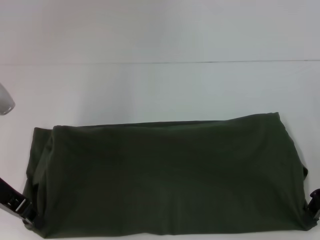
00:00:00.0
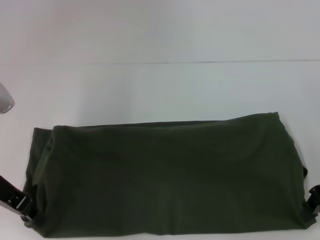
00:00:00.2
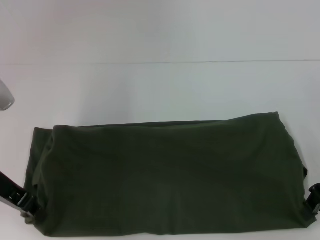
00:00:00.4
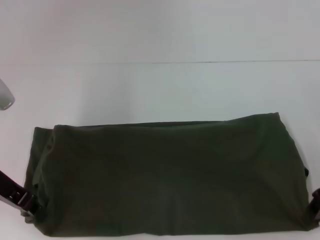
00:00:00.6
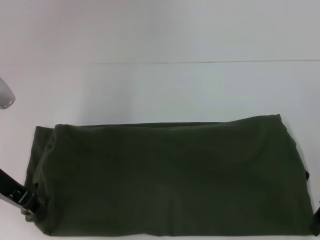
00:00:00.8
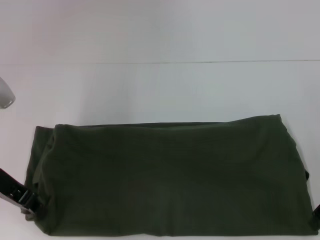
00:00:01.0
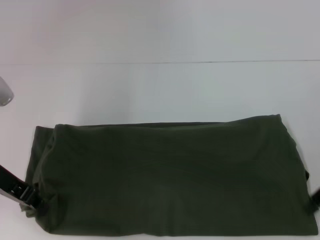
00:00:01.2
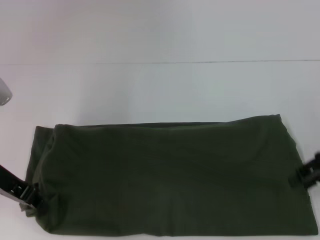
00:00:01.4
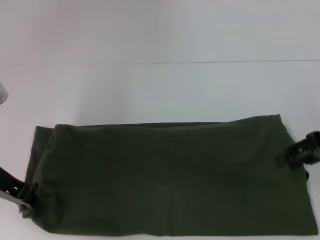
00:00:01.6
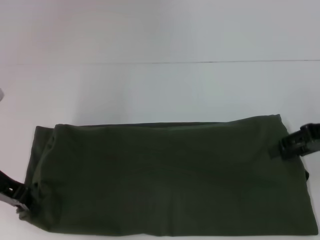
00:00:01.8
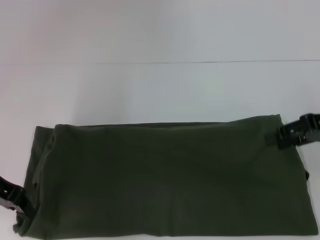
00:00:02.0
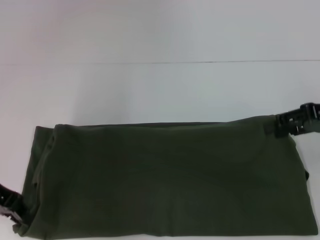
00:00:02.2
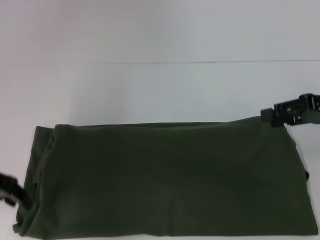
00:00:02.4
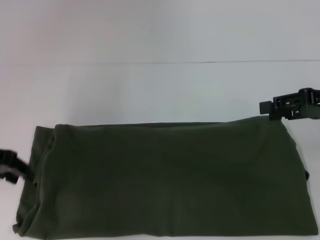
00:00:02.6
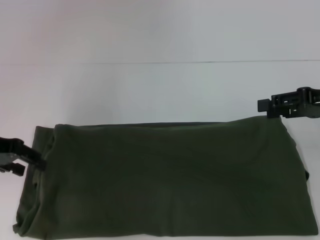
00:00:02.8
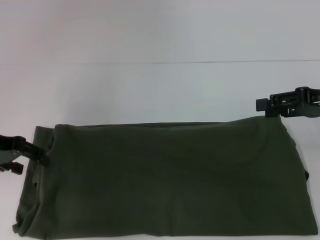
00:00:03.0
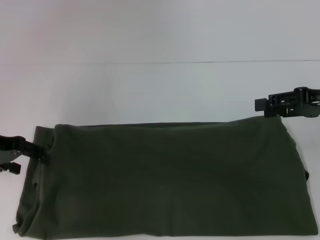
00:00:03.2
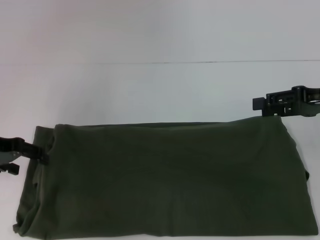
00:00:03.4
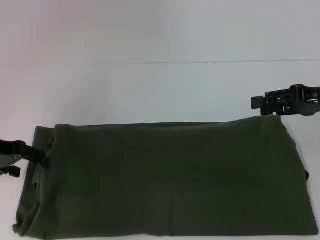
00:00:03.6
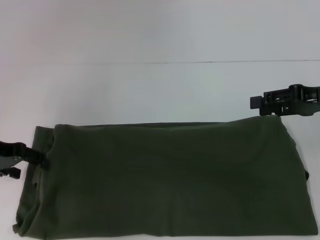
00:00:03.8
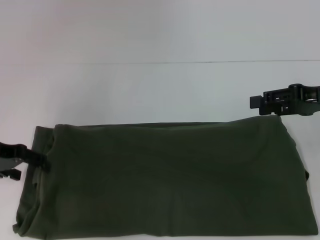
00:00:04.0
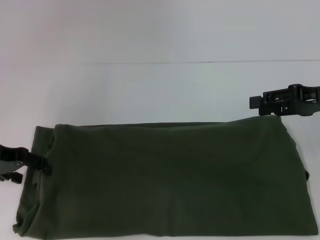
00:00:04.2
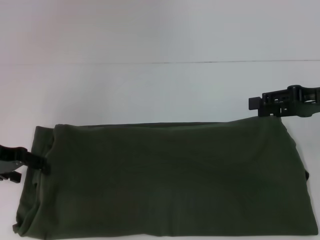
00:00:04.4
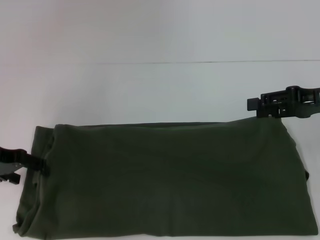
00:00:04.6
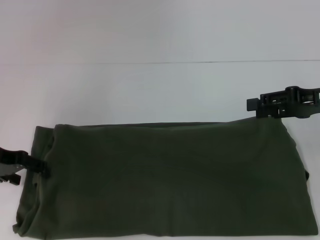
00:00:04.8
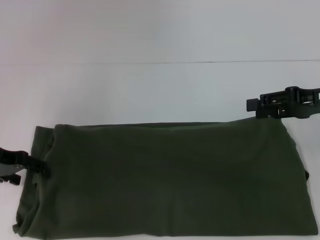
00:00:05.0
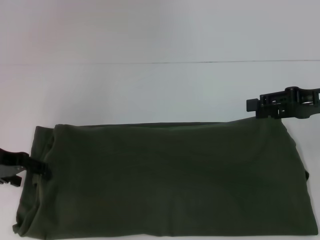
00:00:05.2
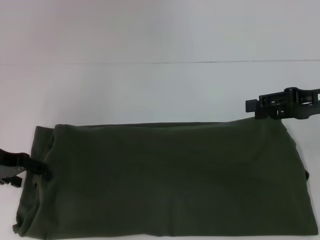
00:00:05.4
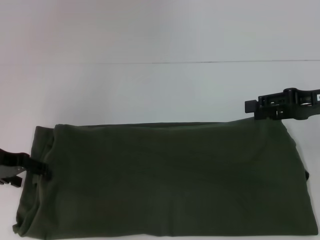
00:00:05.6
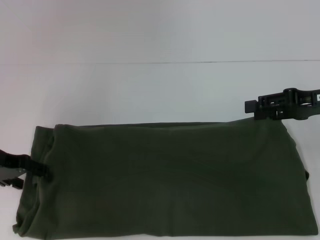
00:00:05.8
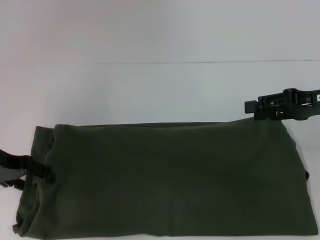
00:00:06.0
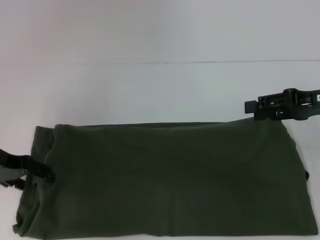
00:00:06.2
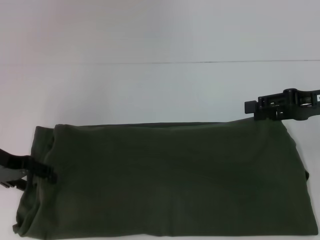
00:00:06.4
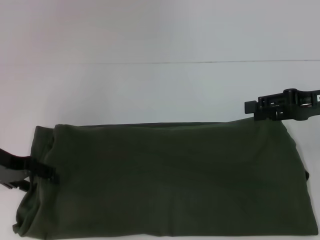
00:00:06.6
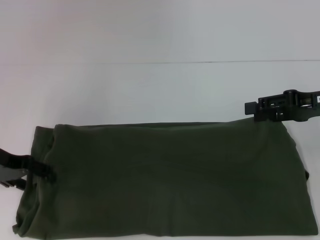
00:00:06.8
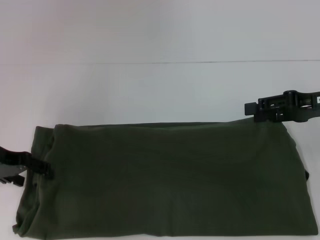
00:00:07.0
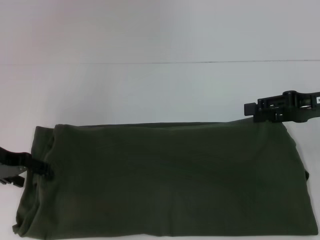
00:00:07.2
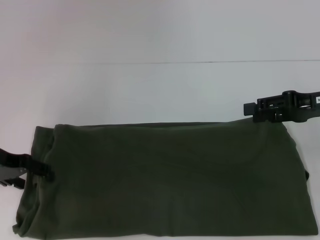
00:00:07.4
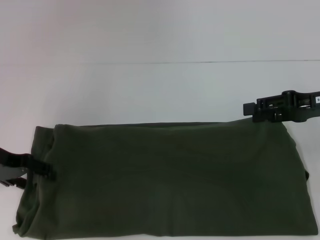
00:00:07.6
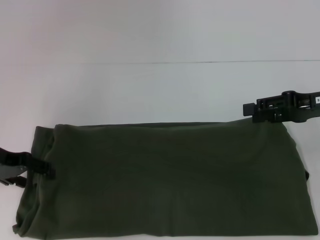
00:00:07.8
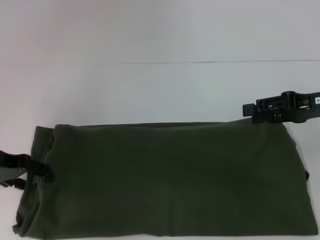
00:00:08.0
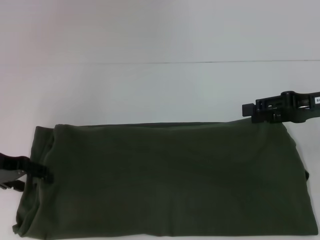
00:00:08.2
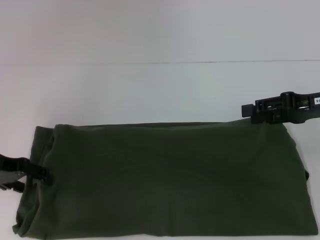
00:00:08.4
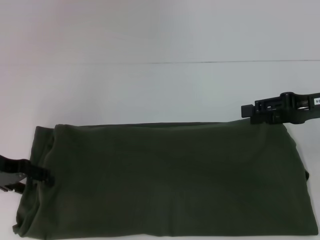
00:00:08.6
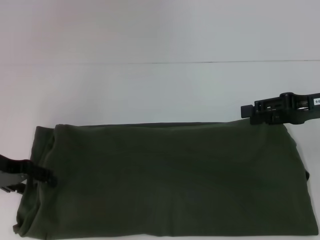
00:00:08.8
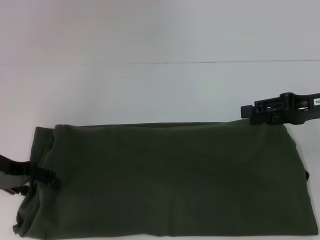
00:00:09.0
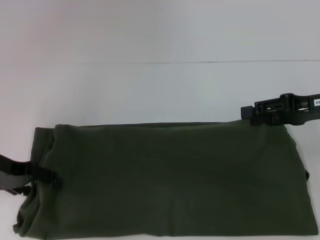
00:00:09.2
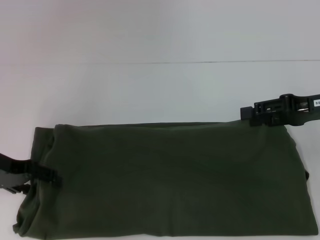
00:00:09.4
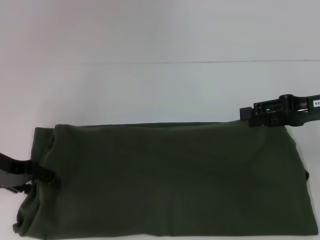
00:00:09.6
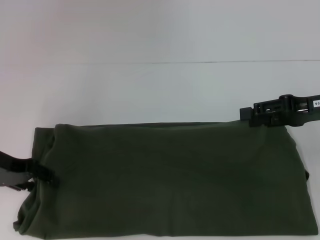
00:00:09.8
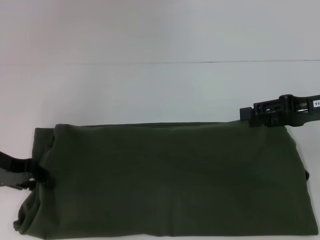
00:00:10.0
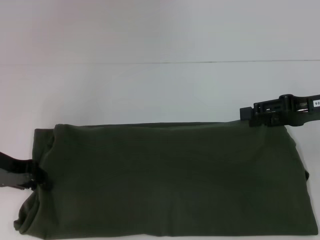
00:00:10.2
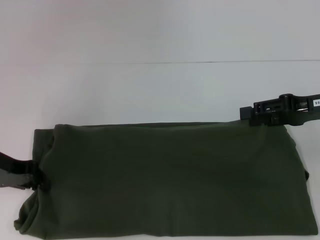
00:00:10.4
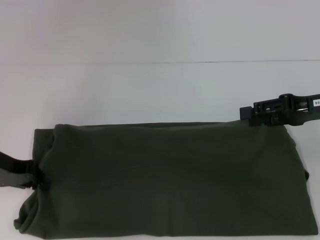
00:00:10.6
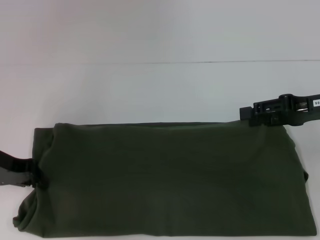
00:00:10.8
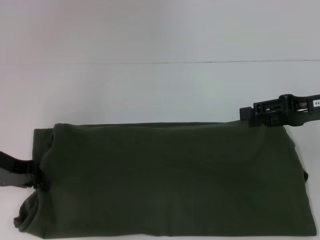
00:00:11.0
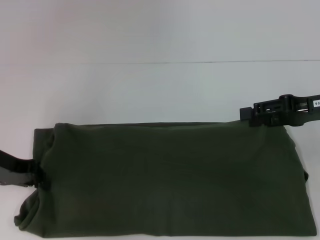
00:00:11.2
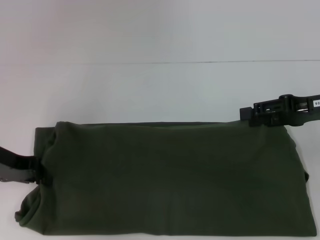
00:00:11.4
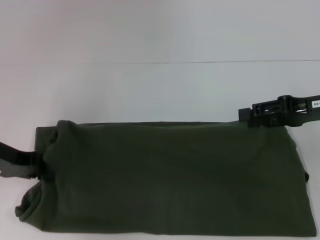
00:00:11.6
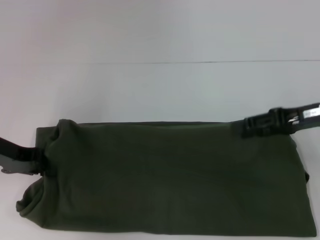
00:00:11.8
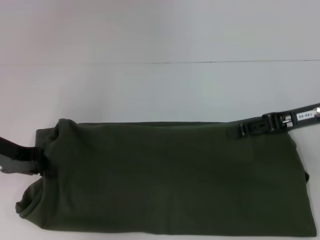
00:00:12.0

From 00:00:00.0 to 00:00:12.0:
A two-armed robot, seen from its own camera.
From 00:00:00.0 to 00:00:01.6: The right gripper opens.
From 00:00:01.6 to 00:00:03.0: The left gripper opens up.
From 00:00:03.0 to 00:00:04.4: The grippers make only small movements.
From 00:00:04.4 to 00:00:06.0: Both grippers stay about where they are.
From 00:00:06.0 to 00:00:09.0: Neither gripper changes place.
From 00:00:09.0 to 00:00:10.4: The left gripper closes.
From 00:00:10.4 to 00:00:12.0: The grippers stay close to where they were, moving slightly.

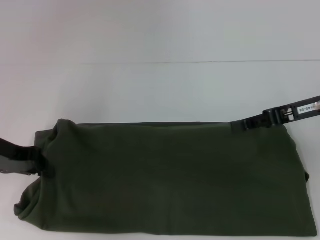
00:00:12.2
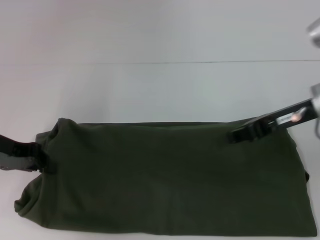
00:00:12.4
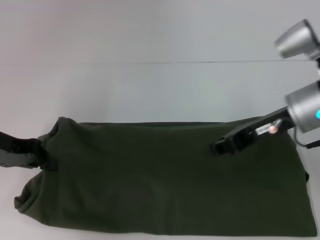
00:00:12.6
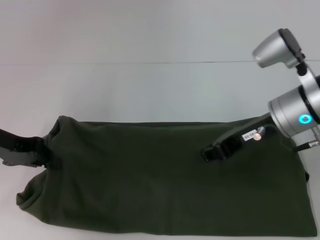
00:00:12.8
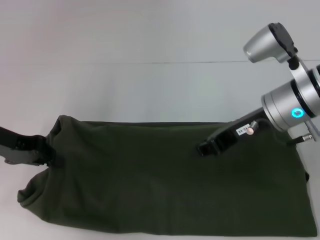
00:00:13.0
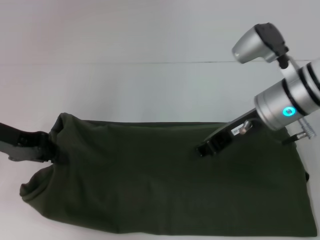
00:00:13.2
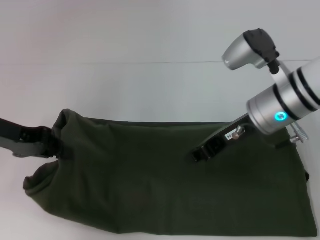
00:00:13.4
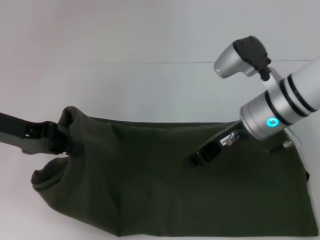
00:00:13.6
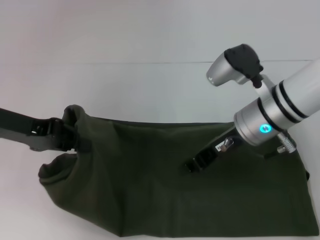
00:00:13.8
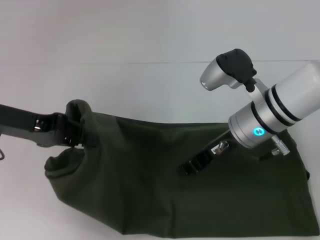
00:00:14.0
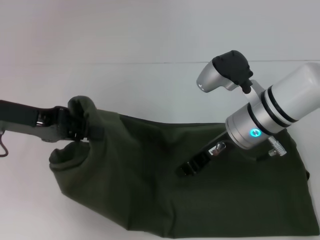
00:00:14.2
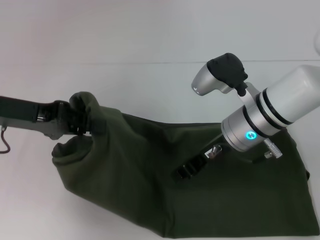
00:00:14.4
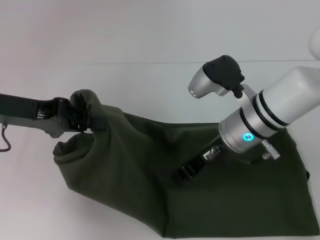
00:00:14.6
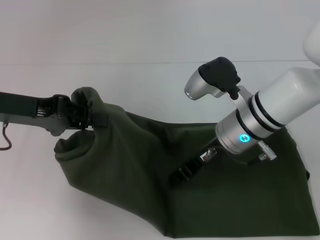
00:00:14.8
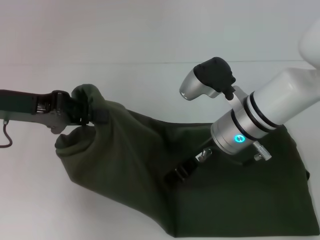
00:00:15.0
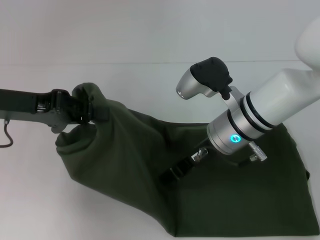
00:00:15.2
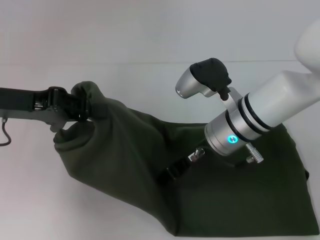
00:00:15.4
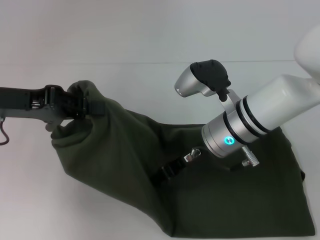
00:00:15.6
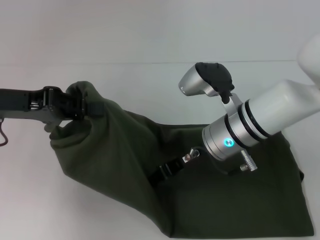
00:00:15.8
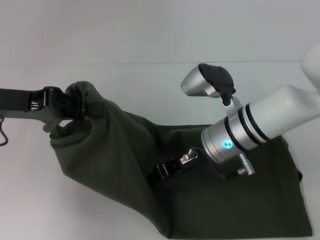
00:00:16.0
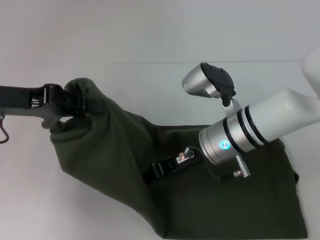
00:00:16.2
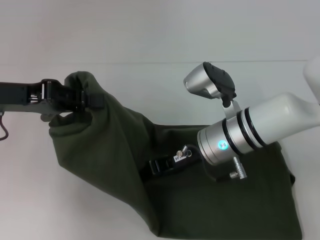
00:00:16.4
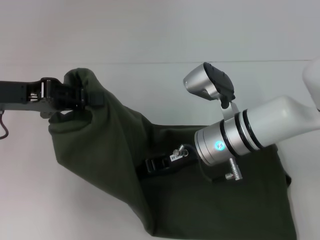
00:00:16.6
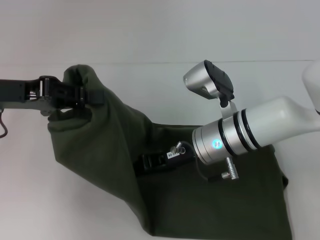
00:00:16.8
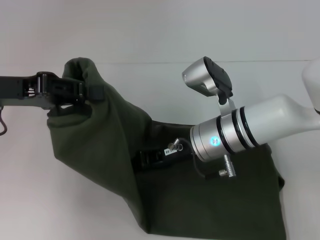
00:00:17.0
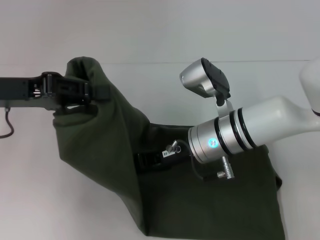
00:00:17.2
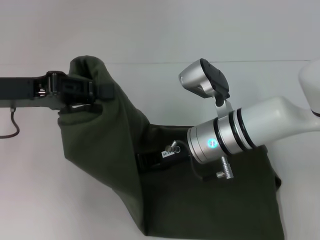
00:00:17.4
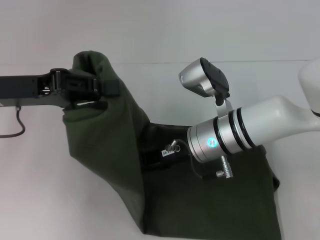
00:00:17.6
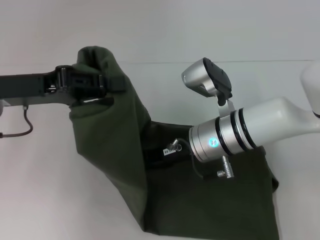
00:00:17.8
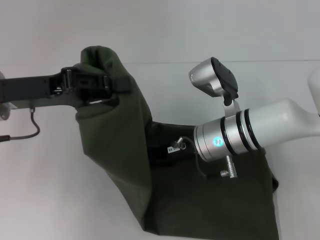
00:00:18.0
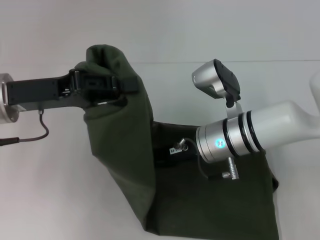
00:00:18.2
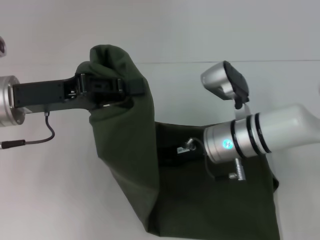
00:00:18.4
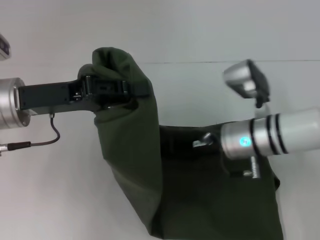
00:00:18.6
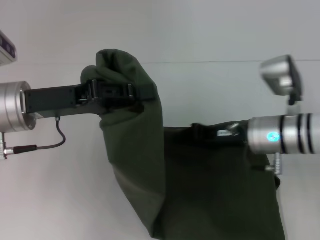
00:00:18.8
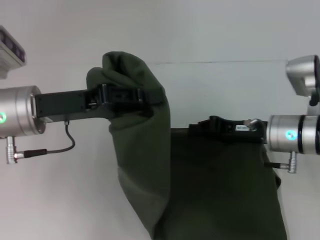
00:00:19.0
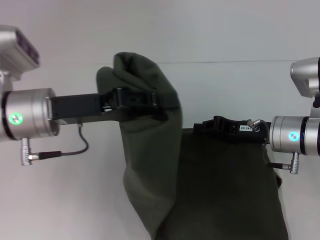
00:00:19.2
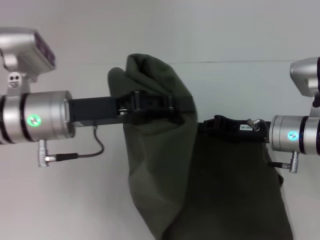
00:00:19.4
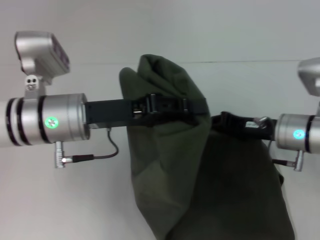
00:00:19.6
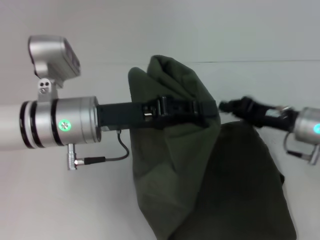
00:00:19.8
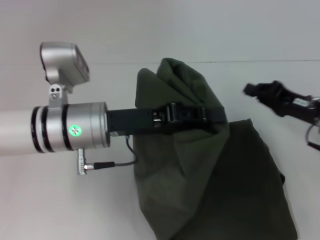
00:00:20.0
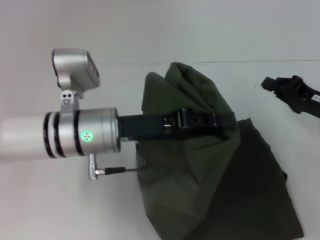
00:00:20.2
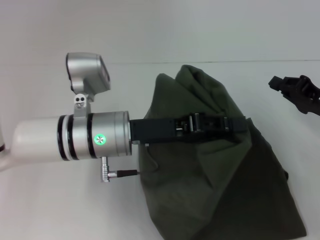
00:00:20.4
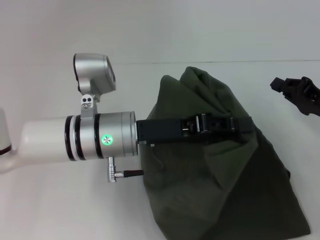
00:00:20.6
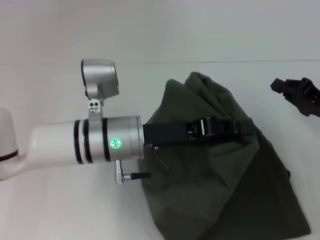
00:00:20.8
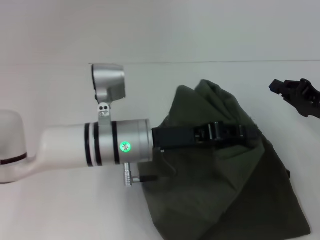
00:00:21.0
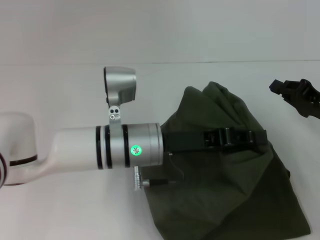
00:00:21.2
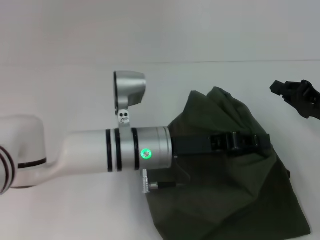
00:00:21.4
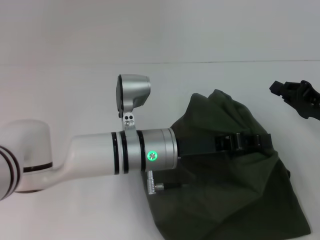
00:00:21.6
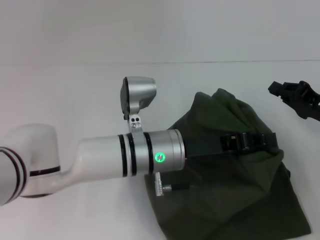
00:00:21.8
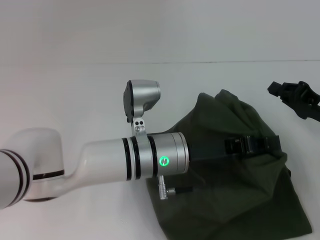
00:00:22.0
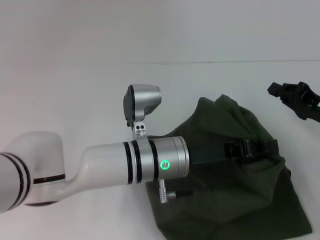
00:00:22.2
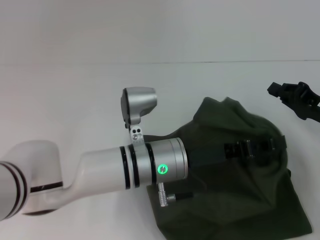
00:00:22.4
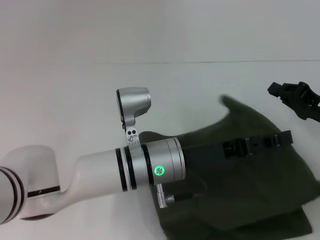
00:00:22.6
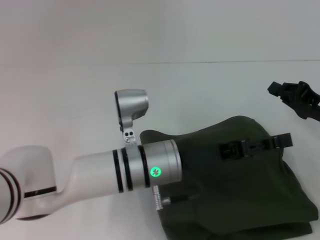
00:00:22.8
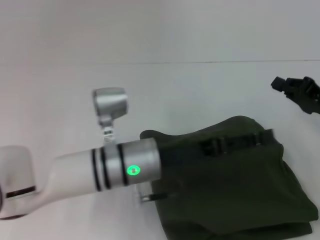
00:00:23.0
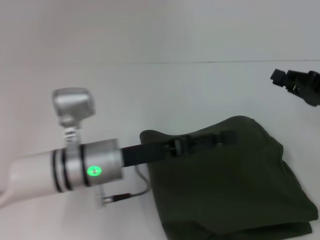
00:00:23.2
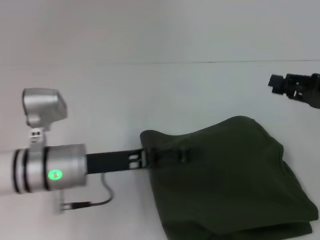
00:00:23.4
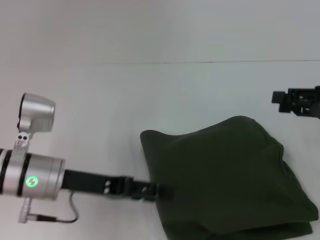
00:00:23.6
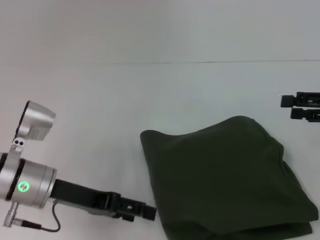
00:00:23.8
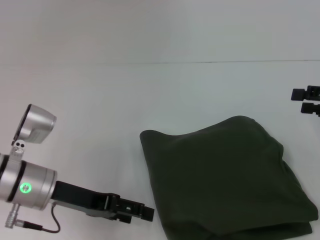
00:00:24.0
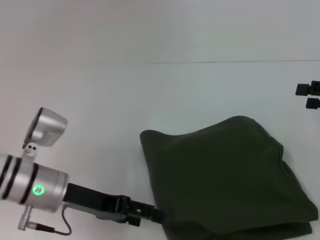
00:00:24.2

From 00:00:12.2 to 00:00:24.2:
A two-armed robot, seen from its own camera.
Step, from 00:00:12.2 to 00:00:22.6: Fold the clothes with your left hand.
From 00:00:12.2 to 00:00:13.8: The right gripper is displaced to the left by approximately 15 cm, and closes up.
From 00:00:18.2 to 00:00:19.8: The left gripper moves to the right, about 10 cm. Meanwhile the right gripper goes about 15 cm to the right.
From 00:00:19.8 to 00:00:21.2: Both grippers move to the right, roughly 5 cm.
From 00:00:22.6 to 00:00:24.2: The right gripper shifts roughly 10 cm upward and to the right, and opens. The left gripper moves to the left, roughly 15 cm, and opens up.
